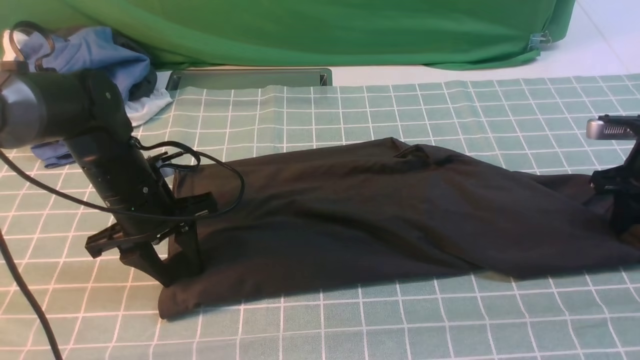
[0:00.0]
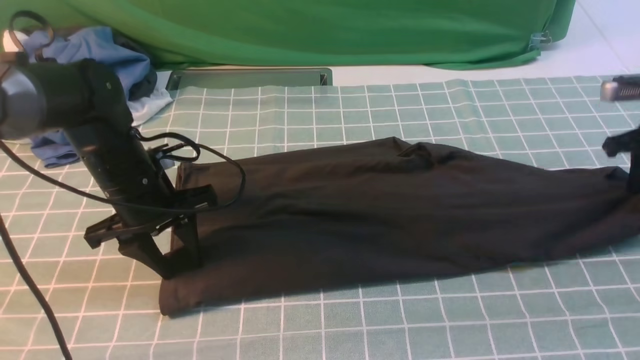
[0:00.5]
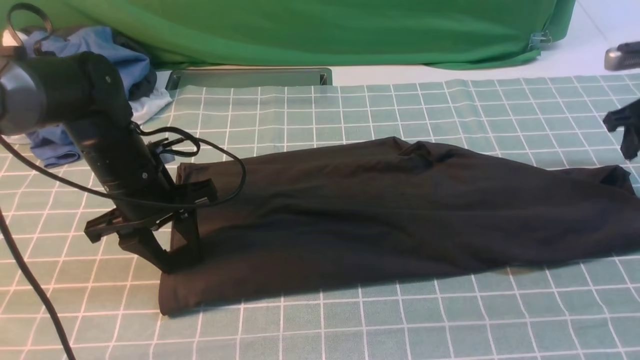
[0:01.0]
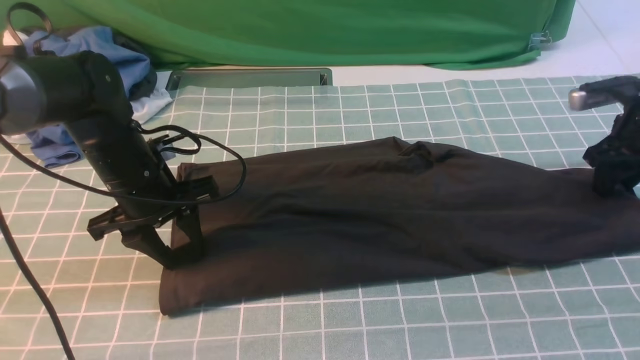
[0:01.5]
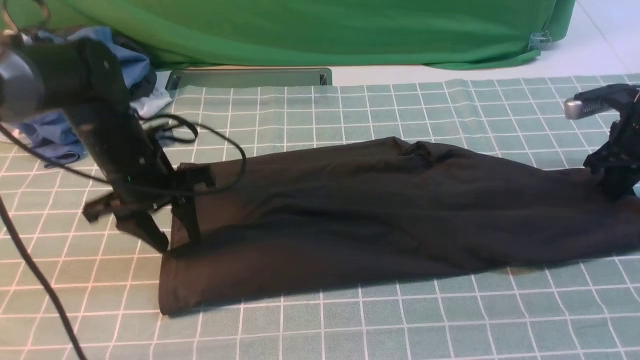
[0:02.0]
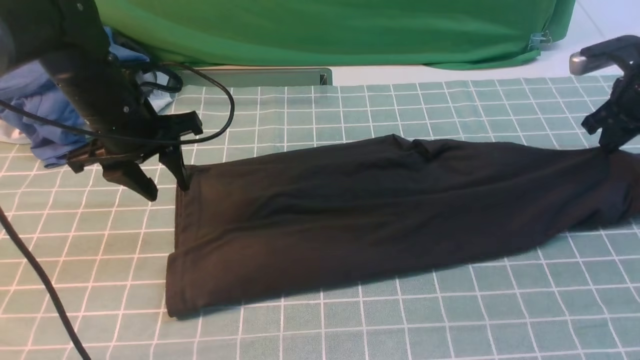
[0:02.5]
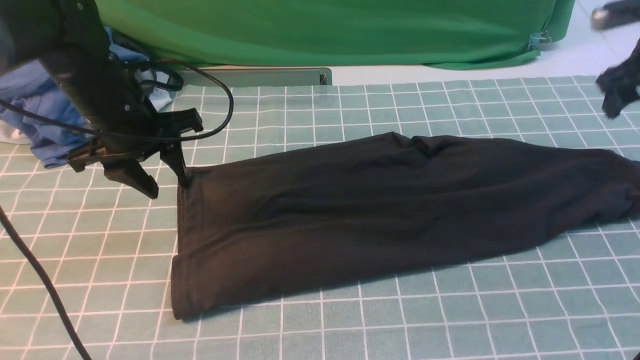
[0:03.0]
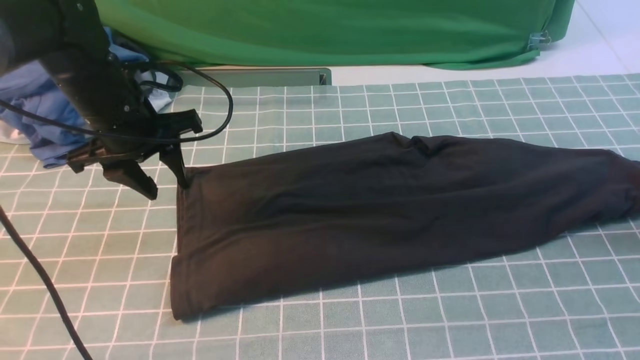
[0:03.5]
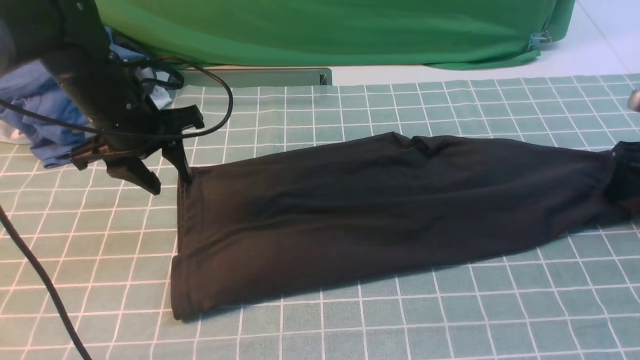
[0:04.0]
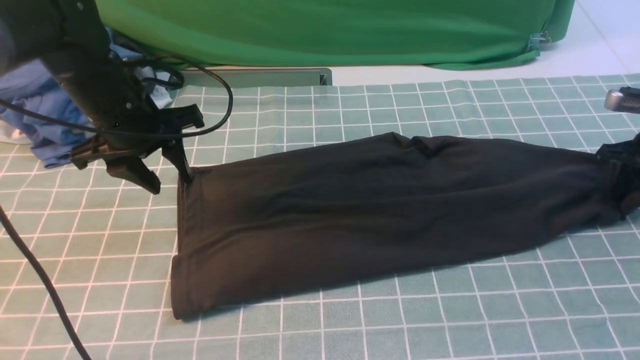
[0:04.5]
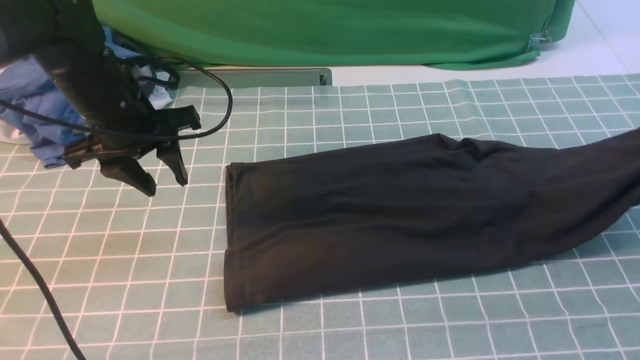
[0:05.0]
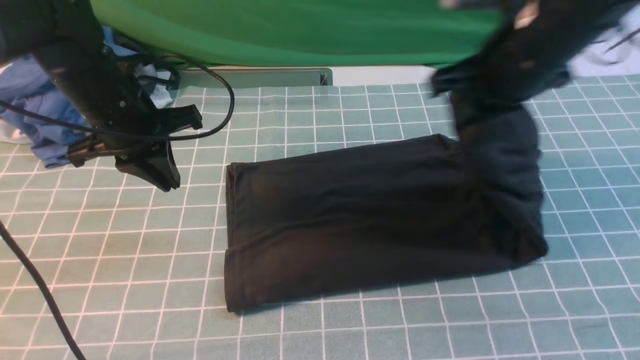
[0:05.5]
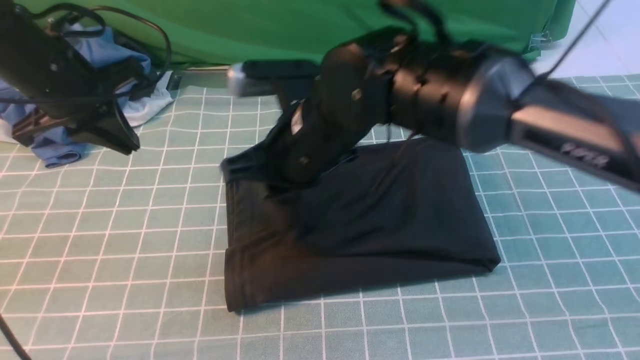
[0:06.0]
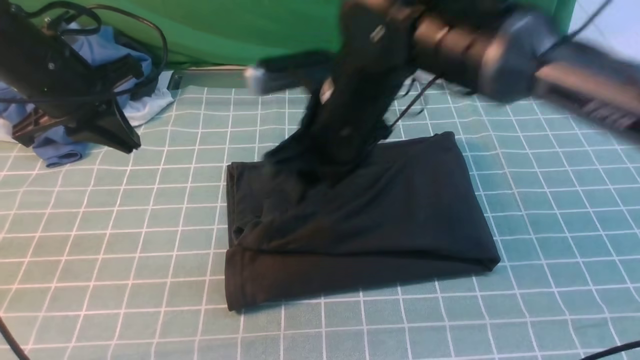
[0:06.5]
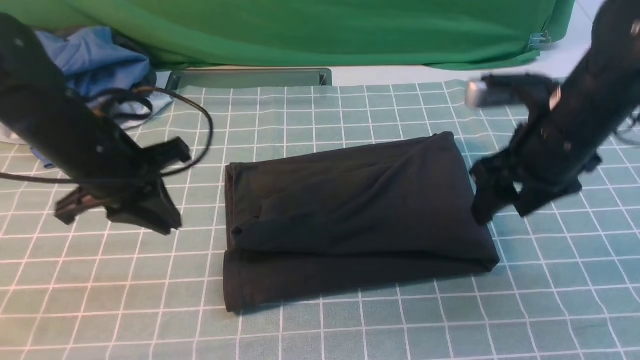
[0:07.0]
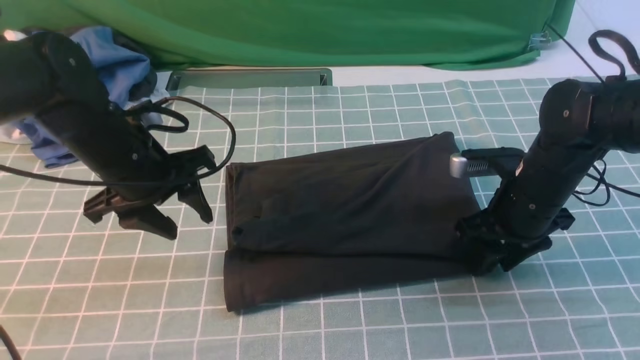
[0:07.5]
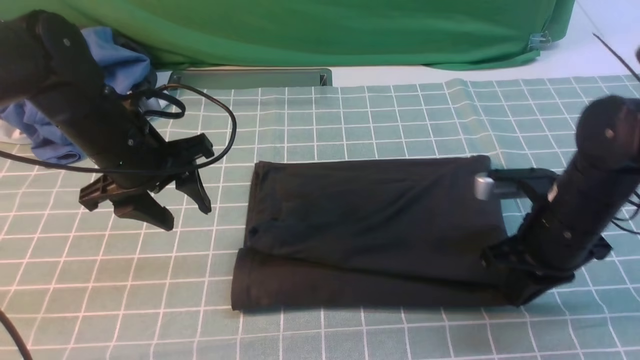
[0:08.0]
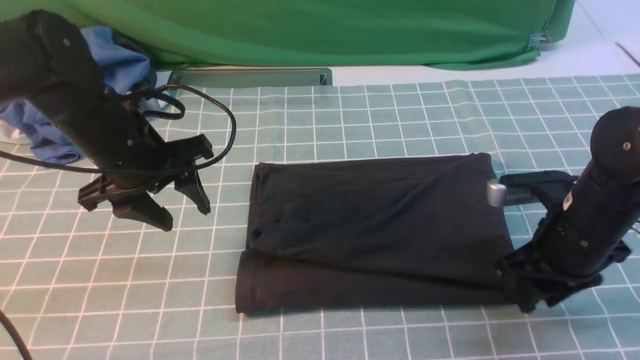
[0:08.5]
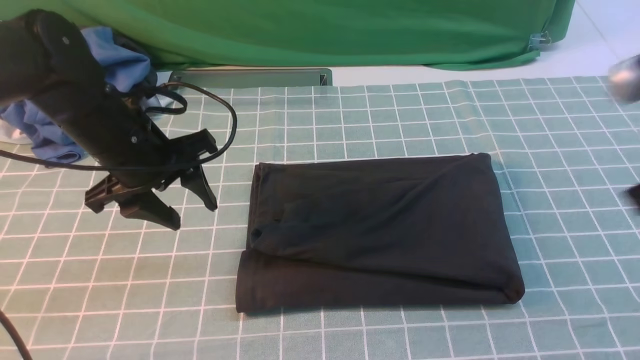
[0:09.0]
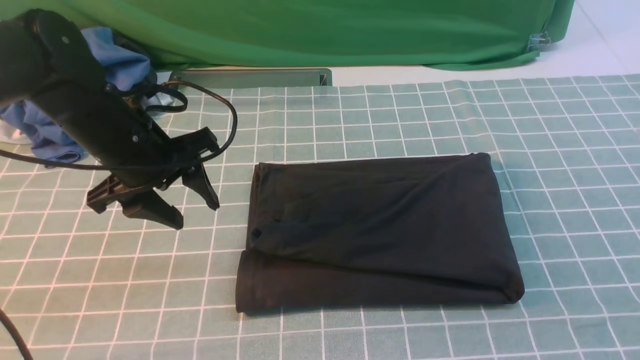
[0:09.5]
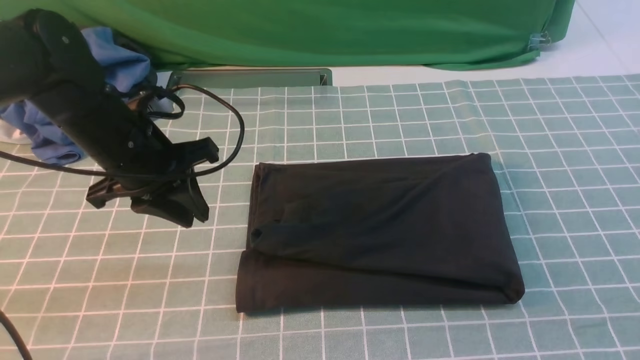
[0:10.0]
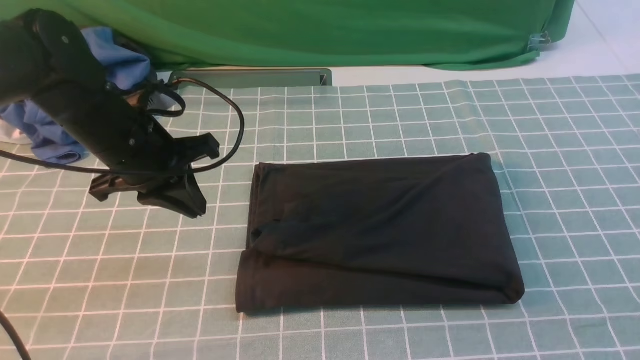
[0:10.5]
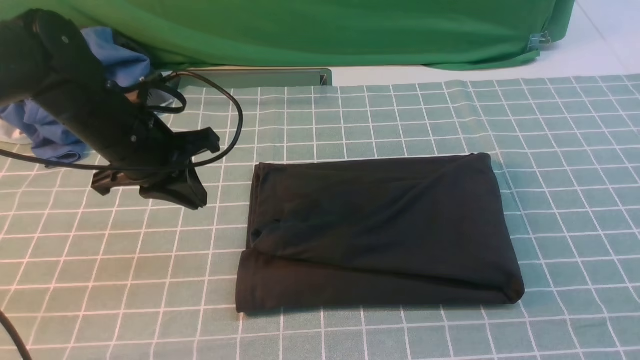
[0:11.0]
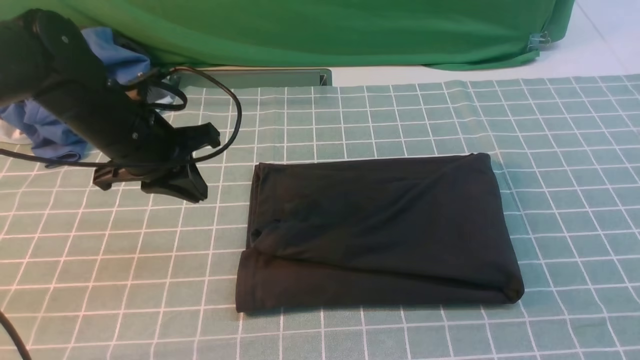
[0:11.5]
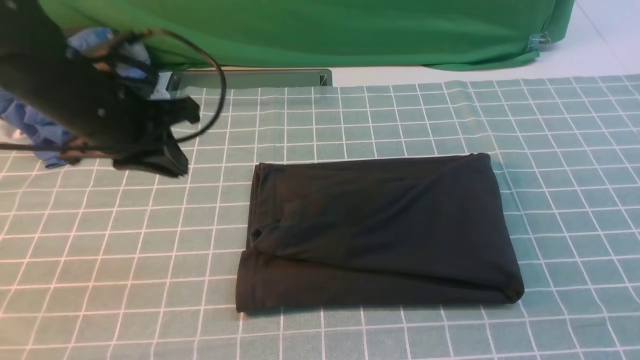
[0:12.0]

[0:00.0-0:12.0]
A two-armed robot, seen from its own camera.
Step, 0:00.0 to 0:04.5: use the right arm to clamp the right edge of the fabric.
Step, 0:05.0 to 0:06.0: use the right arm to drag the right edge of the fabric to the left and folds it over the left edge.
0:02.0 to 0:04.0: The right gripper goes upward and returns, about 10 cm each way, and opens its fingers.
0:04.0 to 0:06.0: The right gripper travels to the left by some 40 cm, and closes its fingers. The left gripper changes place by roughly 5 cm, and closes.
0:06.0 to 0:08.0: The right gripper heads to the right, covering about 25 cm, and opens, then closes once more. The left gripper heads to the right and downward, covering about 10 cm, and opens.
0:08.0 to 0:10.0: The left gripper closes its fingers. The right gripper moves backward and upward, approximately 20 cm, and opens, then closes once more.
0:10.0 to 0:12.0: The left gripper moves upward, some 5 cm.

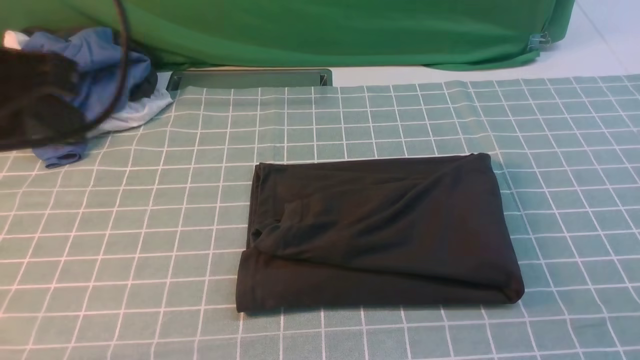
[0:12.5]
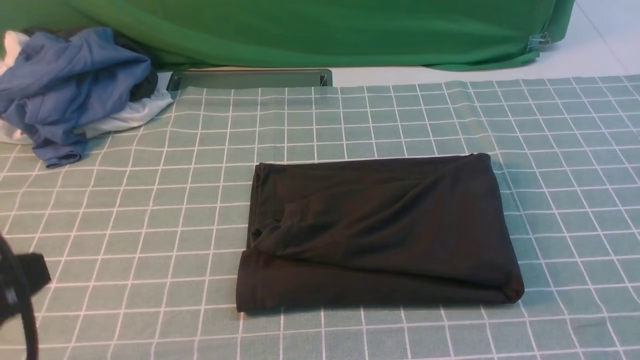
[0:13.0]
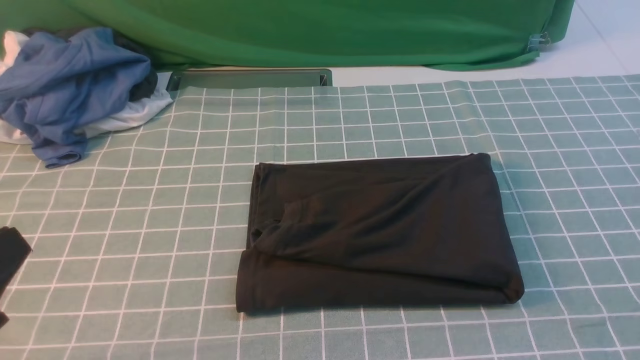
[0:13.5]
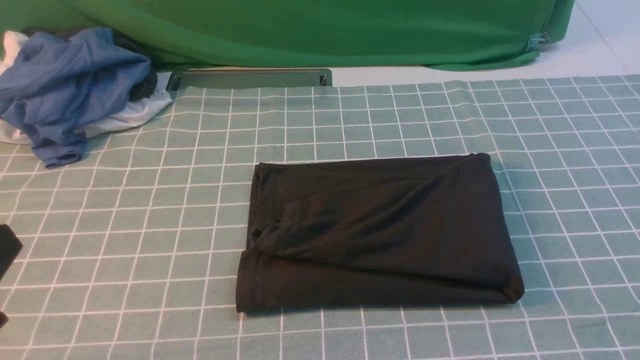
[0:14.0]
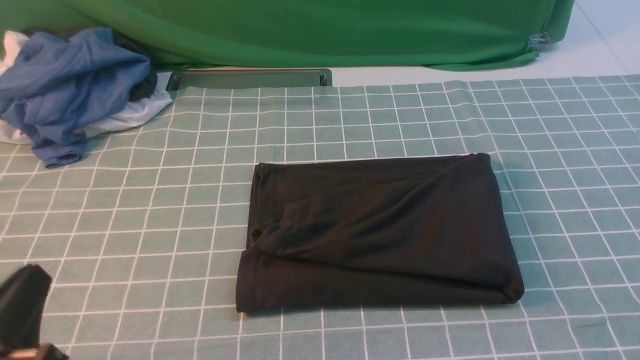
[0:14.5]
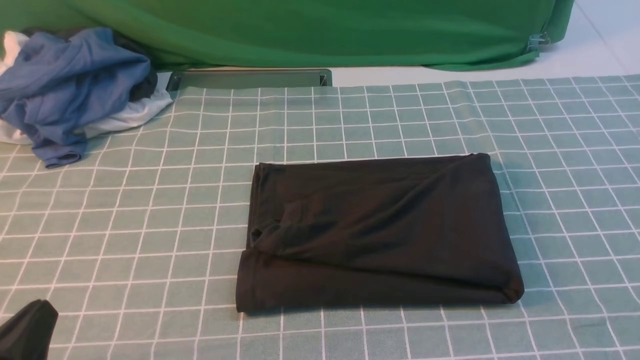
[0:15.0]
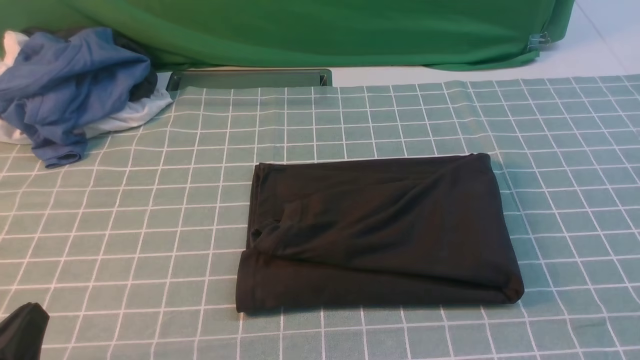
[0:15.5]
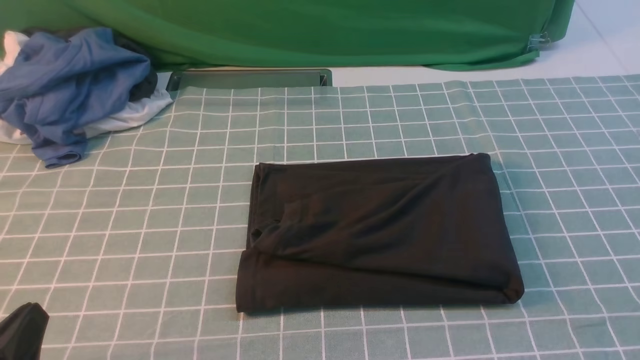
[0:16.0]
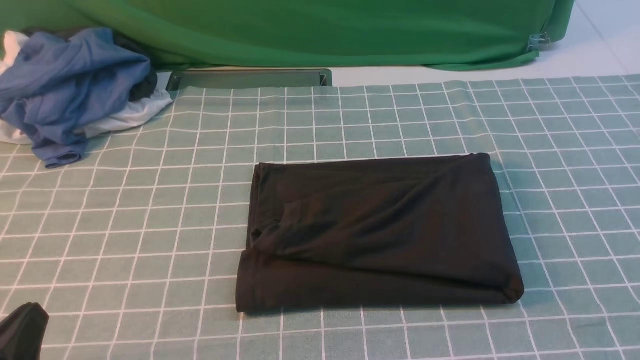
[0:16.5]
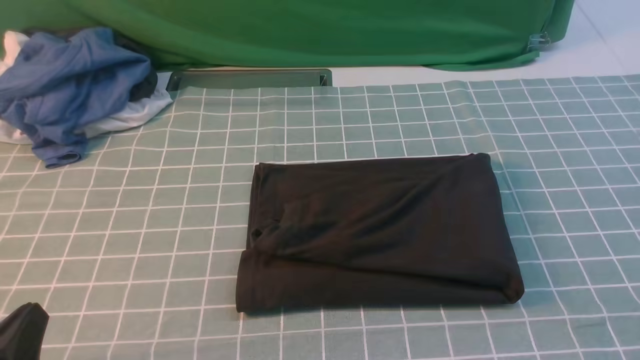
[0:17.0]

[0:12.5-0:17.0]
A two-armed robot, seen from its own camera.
0:12.5 to 0:14.5: The left gripper is displaced downward and backward by approximately 20 cm.
0:14.5 to 0:17.0: There are only small adjustments of the grippers.
